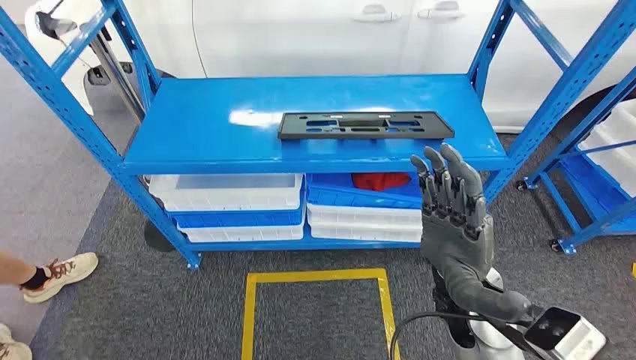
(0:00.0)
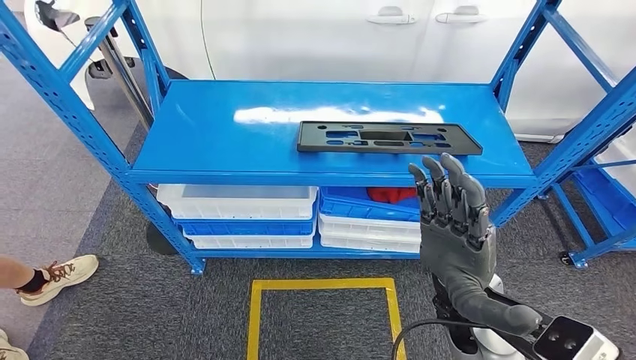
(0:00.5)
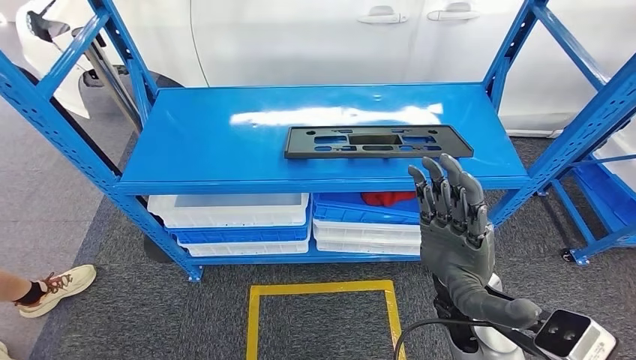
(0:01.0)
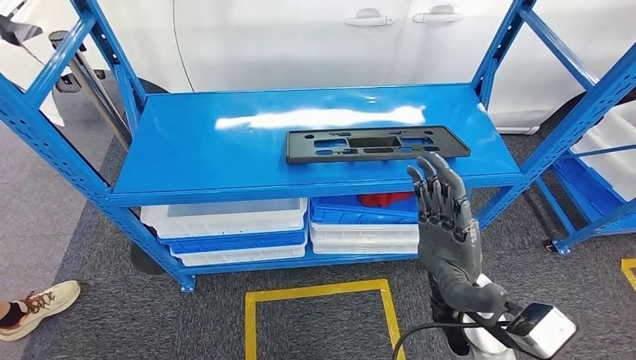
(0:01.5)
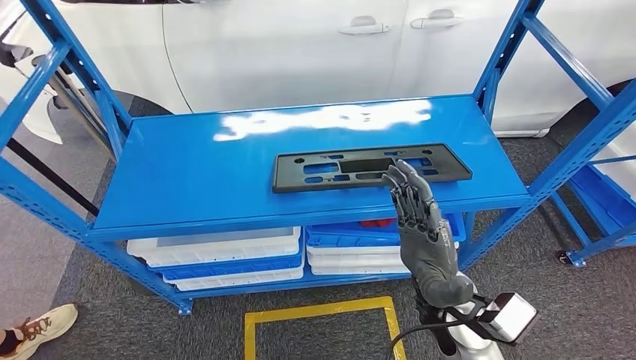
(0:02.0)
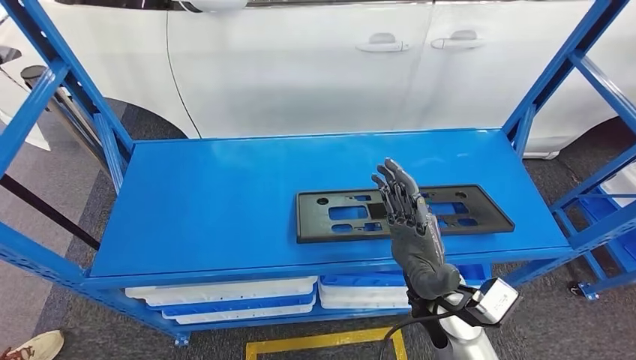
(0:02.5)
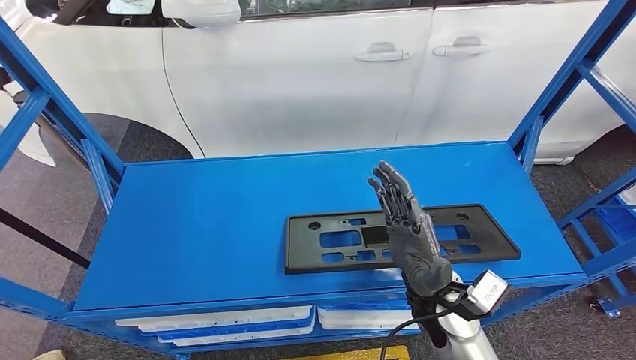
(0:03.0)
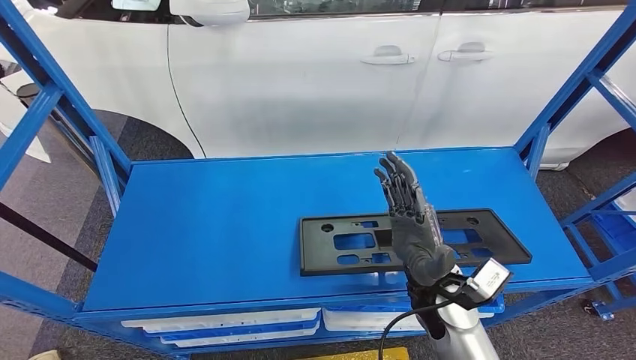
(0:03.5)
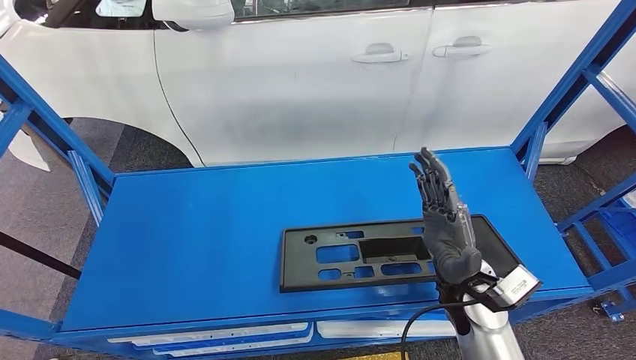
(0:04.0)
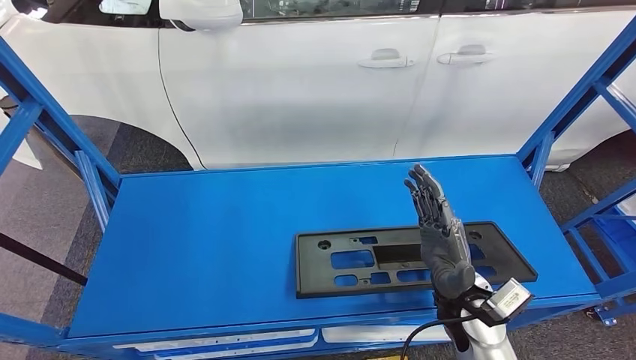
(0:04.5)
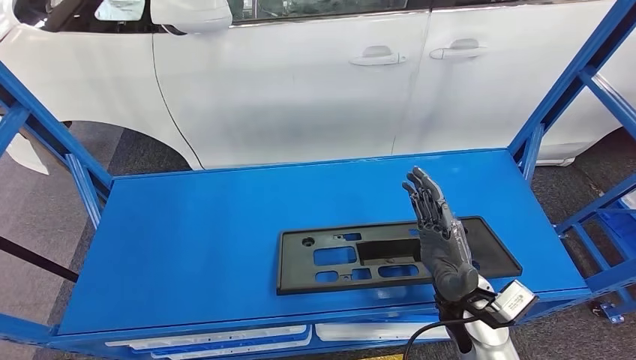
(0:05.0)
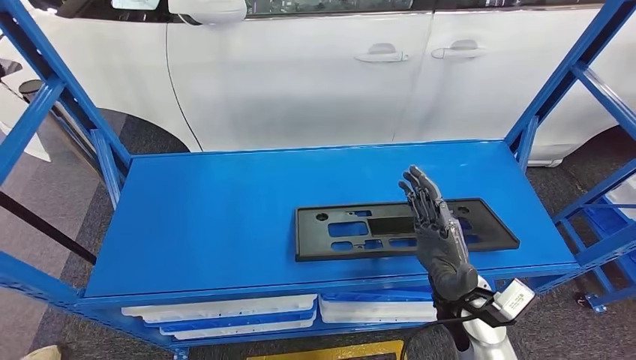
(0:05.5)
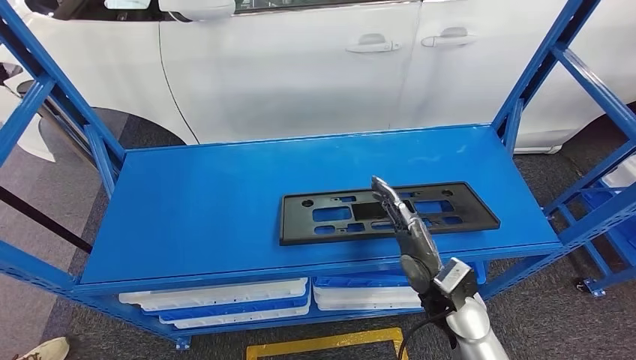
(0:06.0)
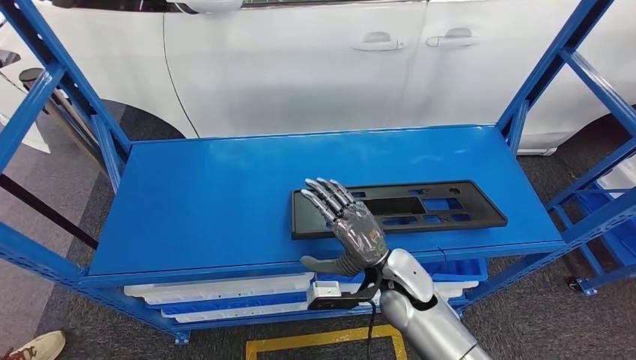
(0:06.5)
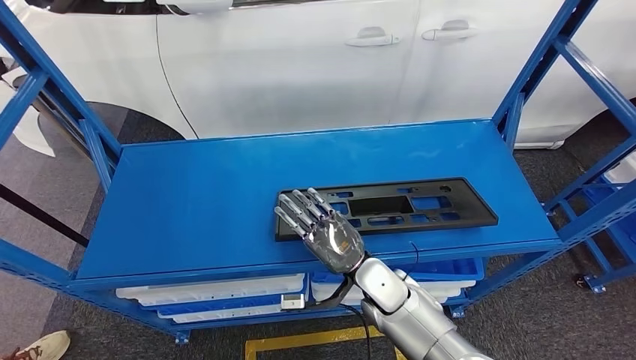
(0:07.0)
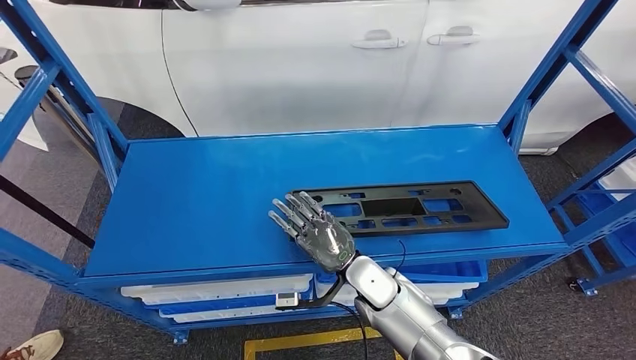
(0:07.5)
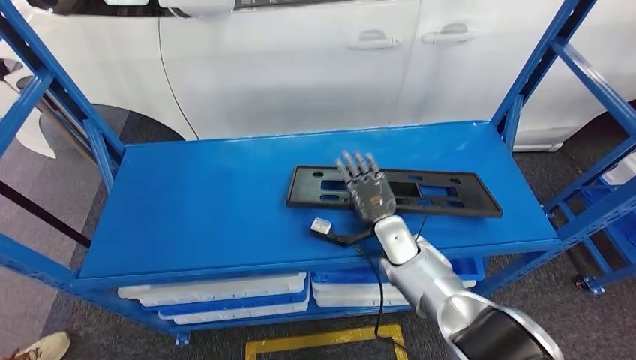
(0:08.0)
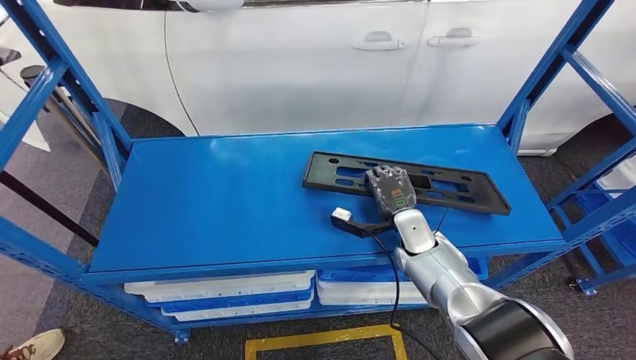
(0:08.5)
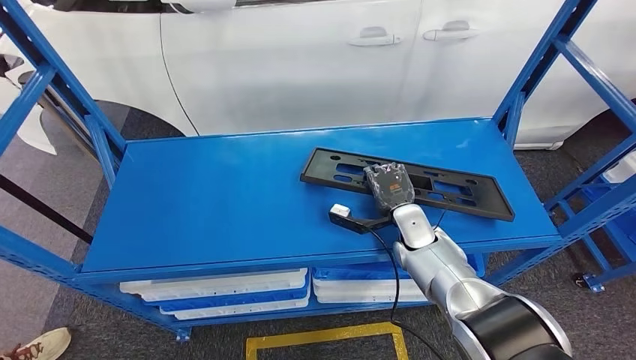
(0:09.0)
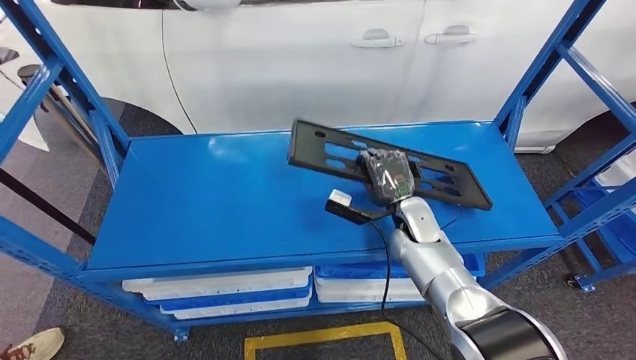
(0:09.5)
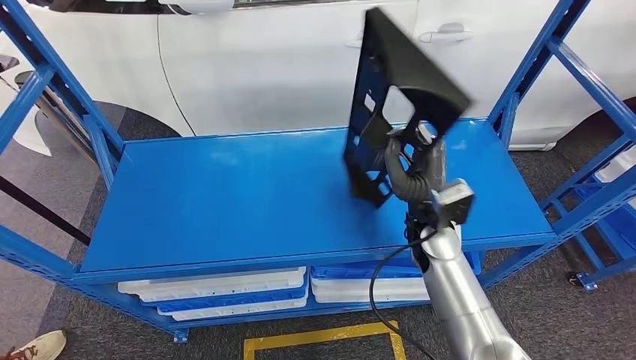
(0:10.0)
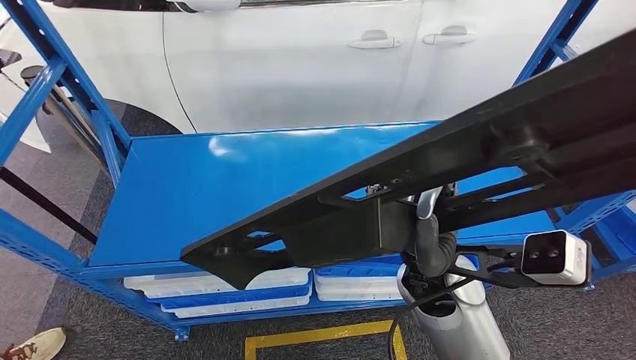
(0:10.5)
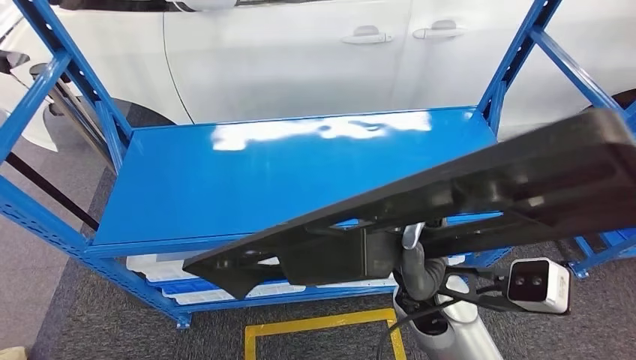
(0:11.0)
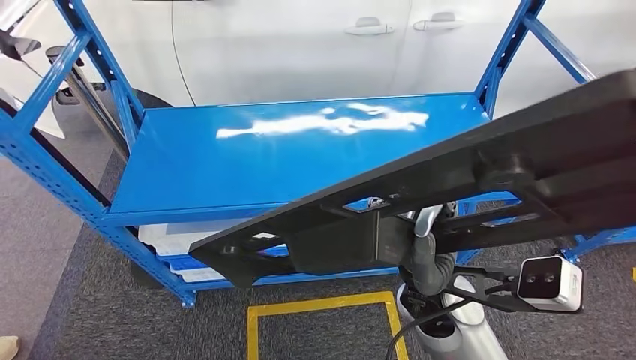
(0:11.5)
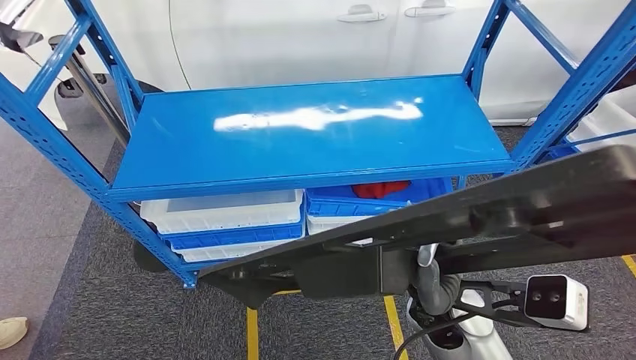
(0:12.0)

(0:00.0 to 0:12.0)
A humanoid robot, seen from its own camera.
Step, 0:00.0 - 0:09.5: Pick up the large material from the shelf.

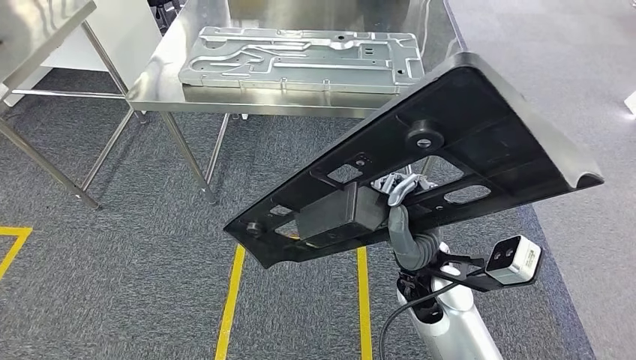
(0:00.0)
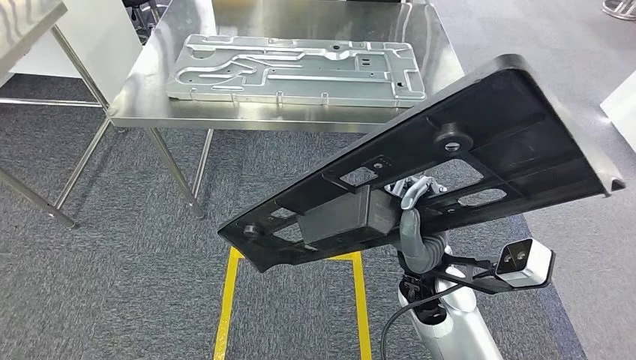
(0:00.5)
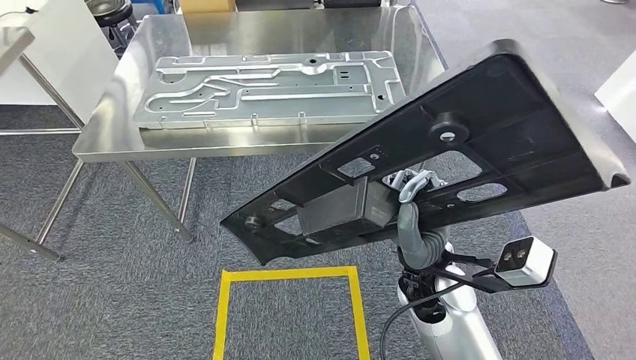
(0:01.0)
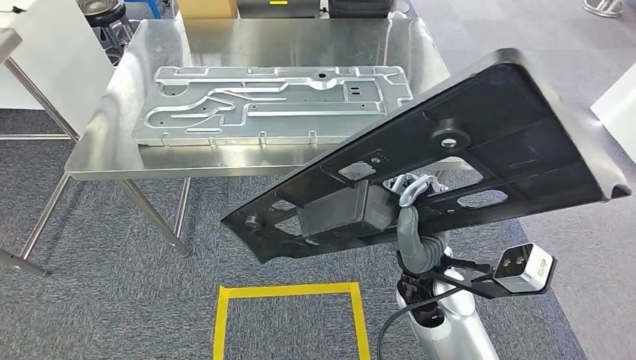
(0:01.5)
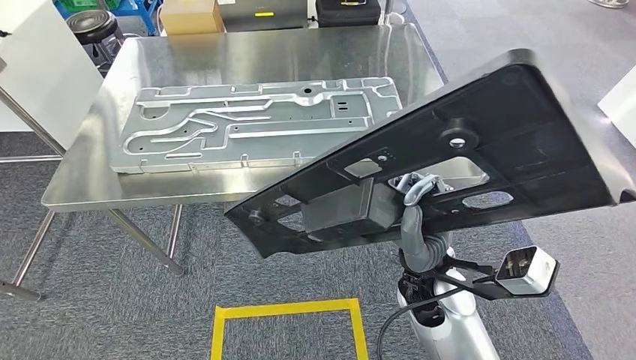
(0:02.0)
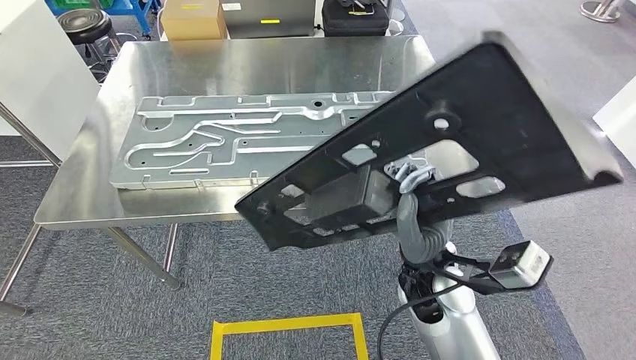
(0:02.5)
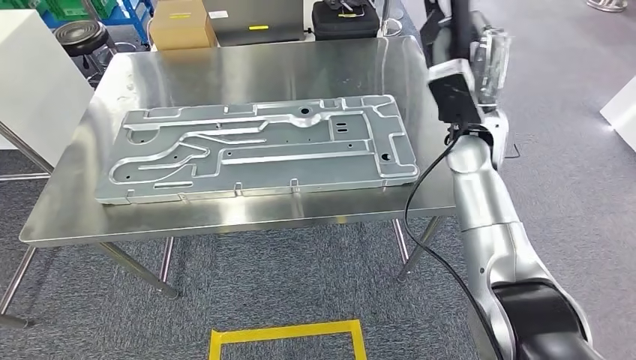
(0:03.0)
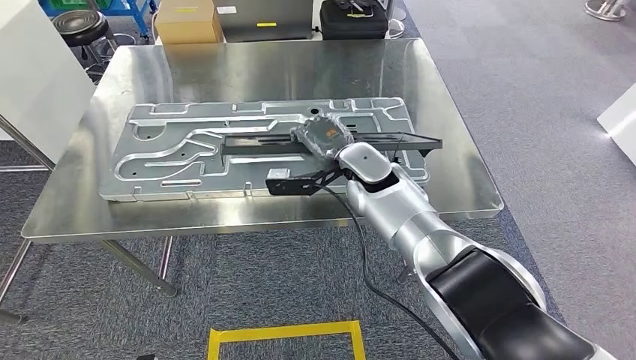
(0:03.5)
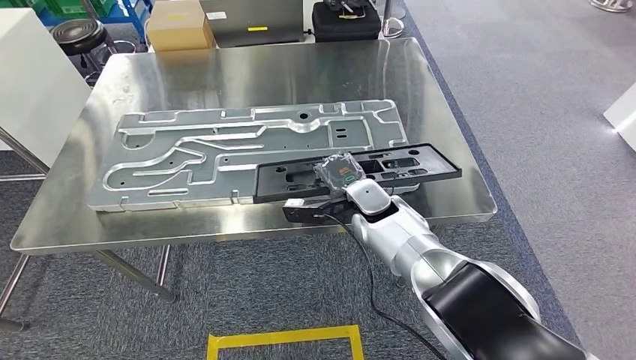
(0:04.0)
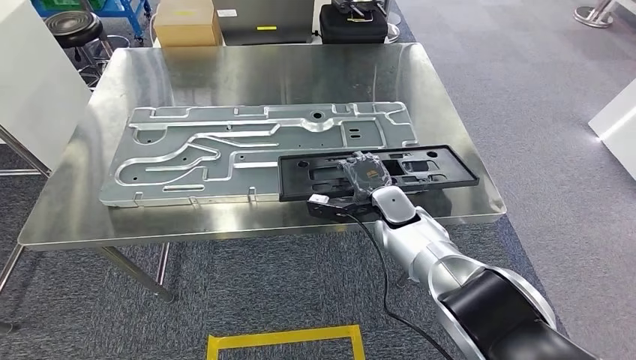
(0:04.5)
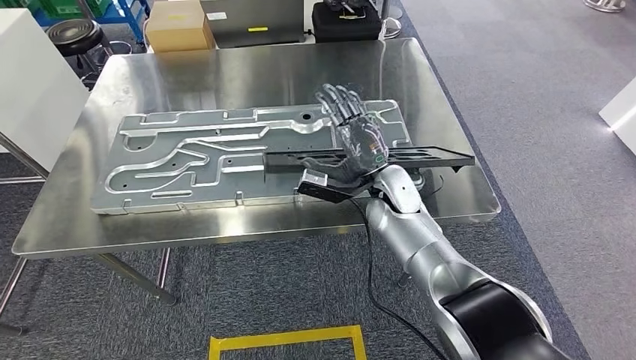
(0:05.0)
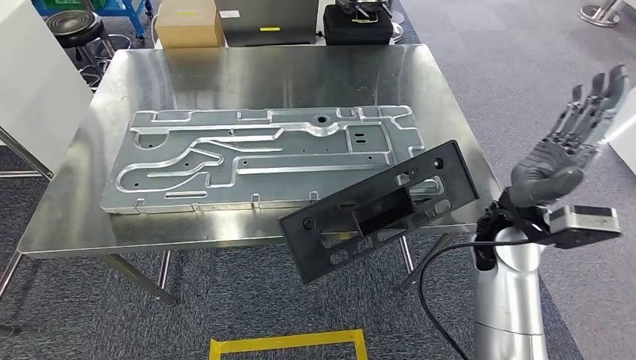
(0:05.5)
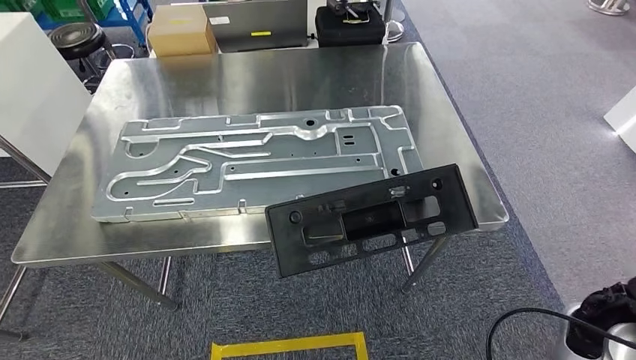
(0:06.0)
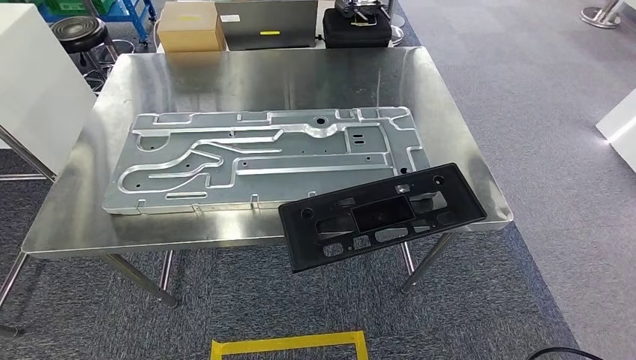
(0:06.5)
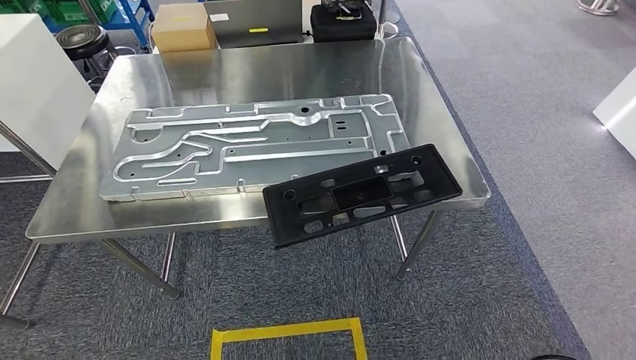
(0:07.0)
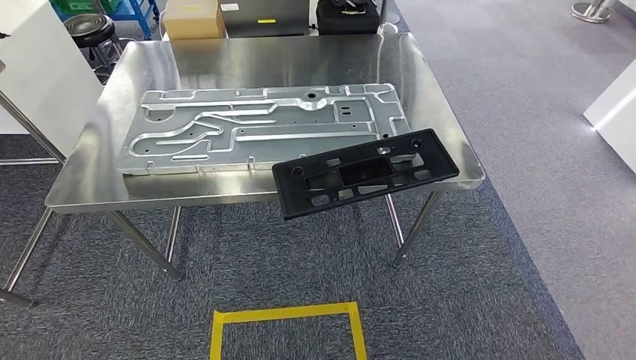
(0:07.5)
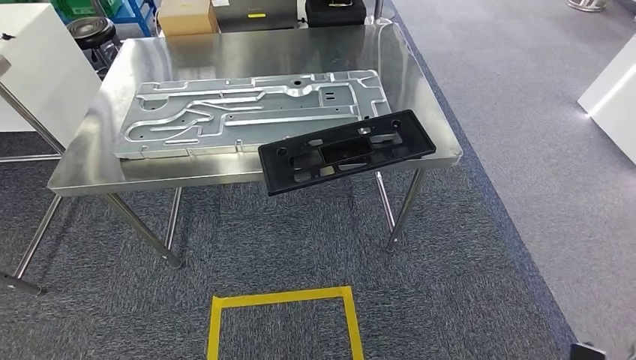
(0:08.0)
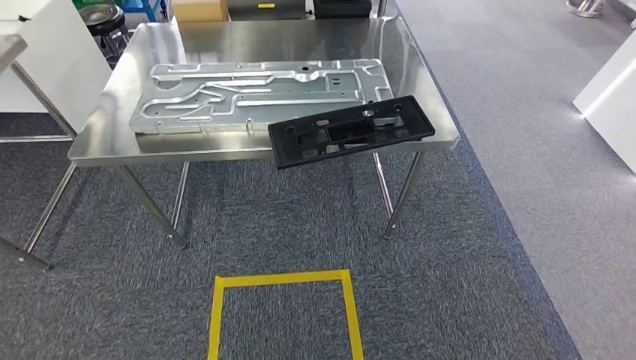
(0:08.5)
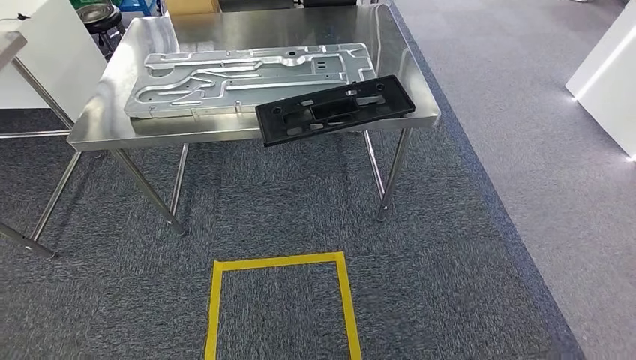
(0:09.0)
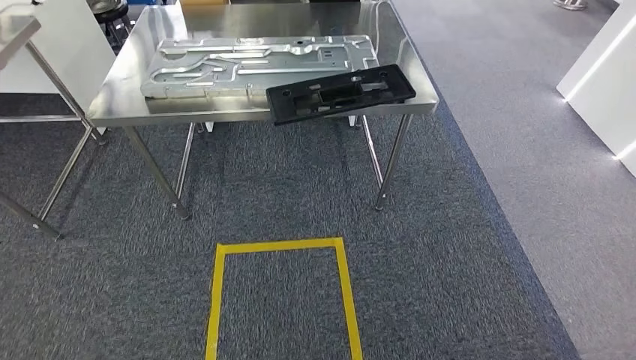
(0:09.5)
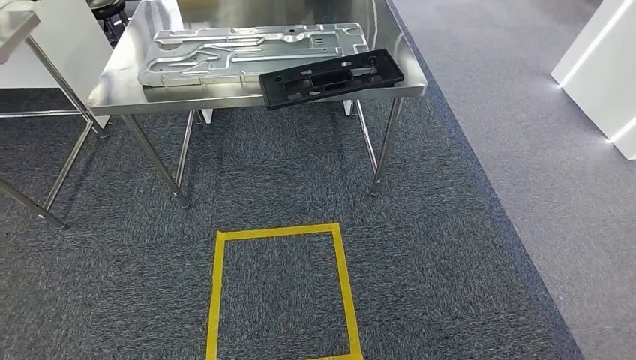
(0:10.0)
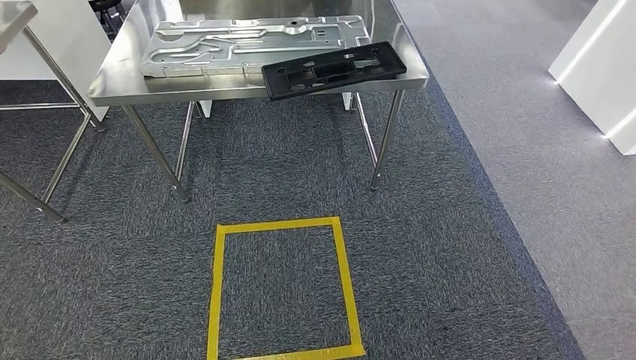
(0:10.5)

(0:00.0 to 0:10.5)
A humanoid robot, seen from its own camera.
Step, 0:04.0 - 0:05.0: Insert the large material into the corresponding slot on the workbench.
